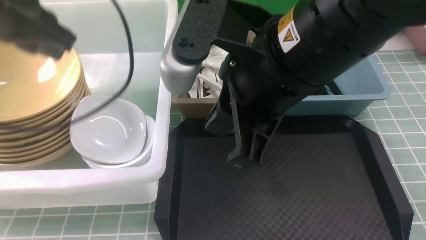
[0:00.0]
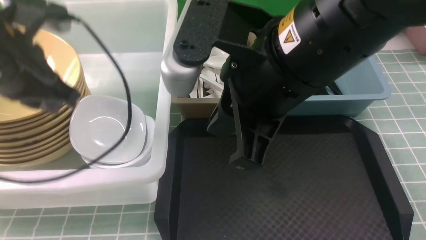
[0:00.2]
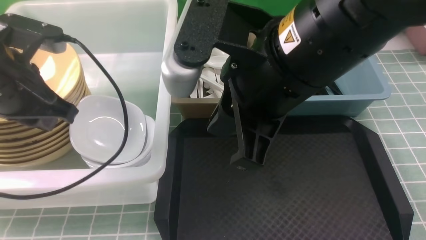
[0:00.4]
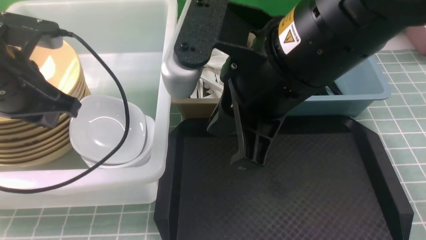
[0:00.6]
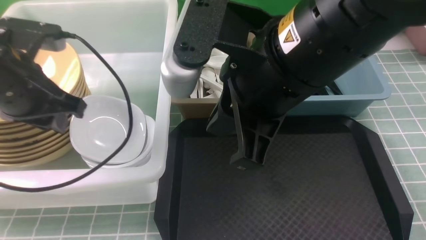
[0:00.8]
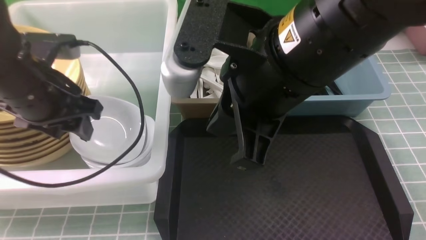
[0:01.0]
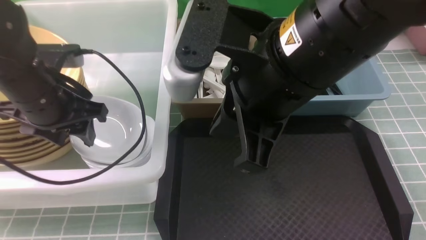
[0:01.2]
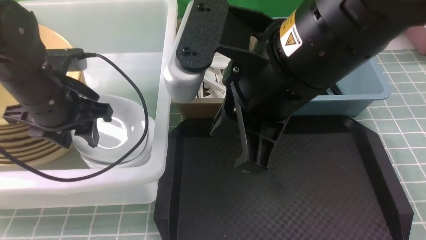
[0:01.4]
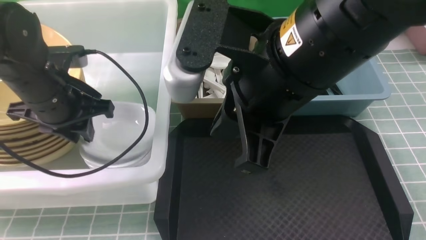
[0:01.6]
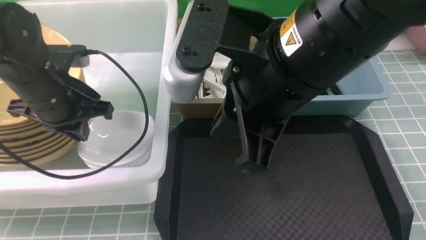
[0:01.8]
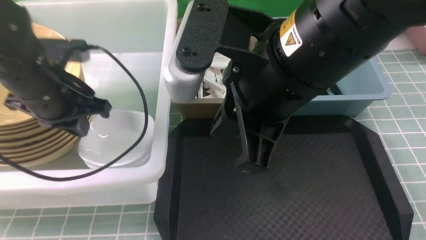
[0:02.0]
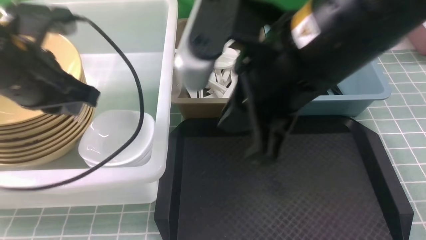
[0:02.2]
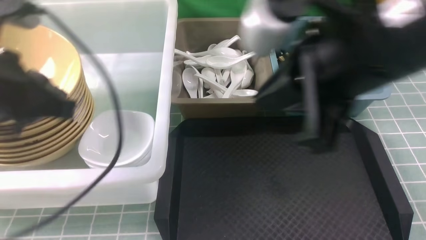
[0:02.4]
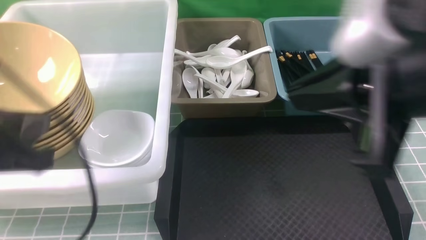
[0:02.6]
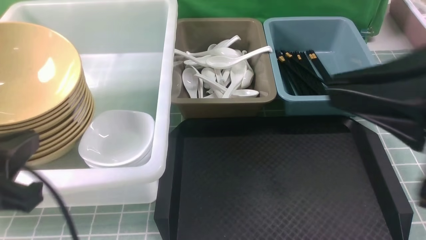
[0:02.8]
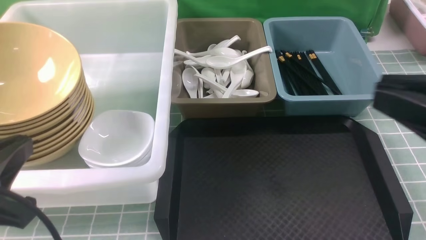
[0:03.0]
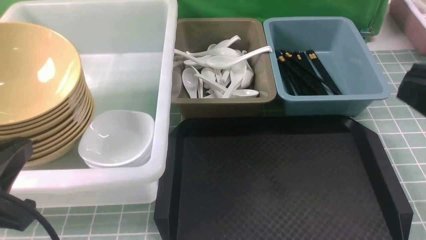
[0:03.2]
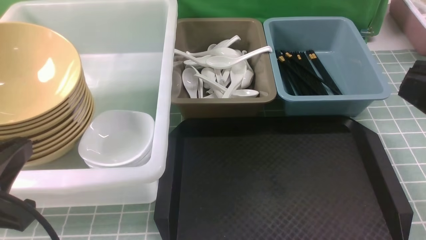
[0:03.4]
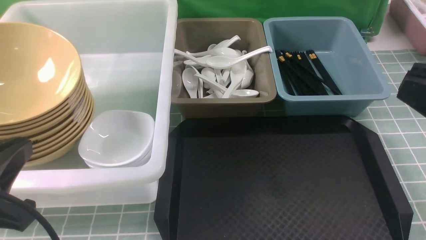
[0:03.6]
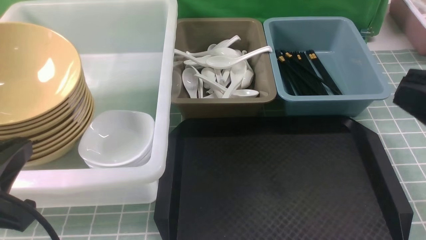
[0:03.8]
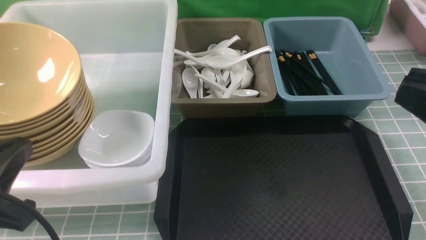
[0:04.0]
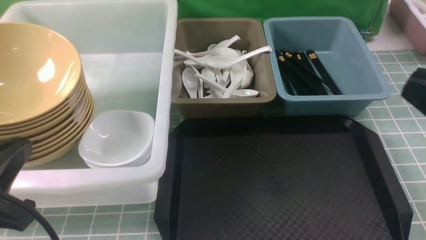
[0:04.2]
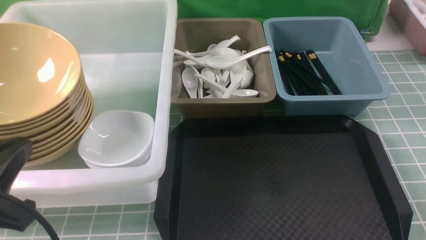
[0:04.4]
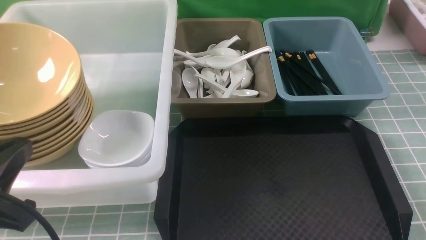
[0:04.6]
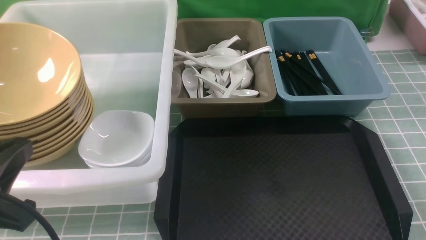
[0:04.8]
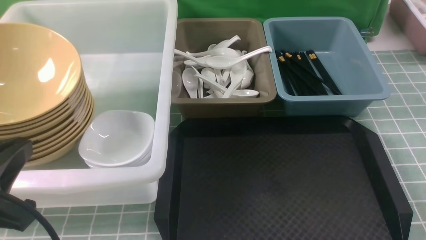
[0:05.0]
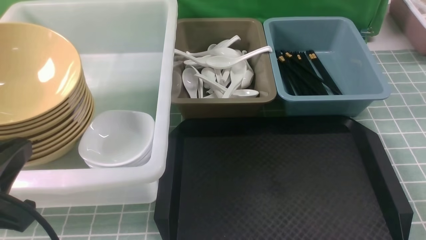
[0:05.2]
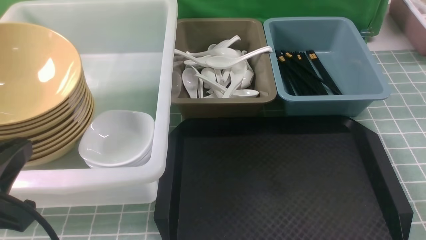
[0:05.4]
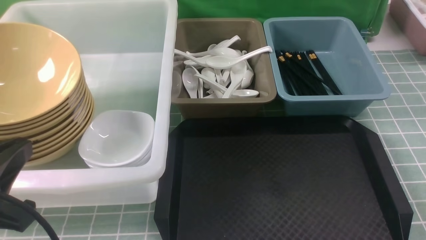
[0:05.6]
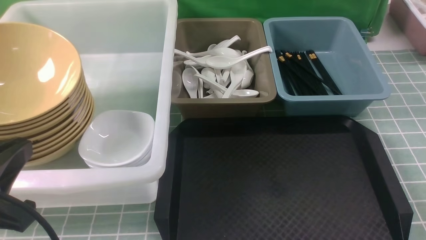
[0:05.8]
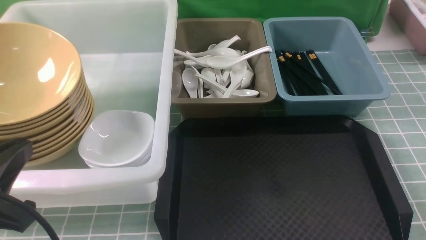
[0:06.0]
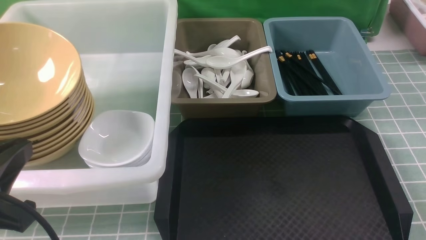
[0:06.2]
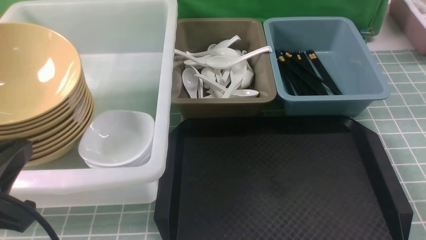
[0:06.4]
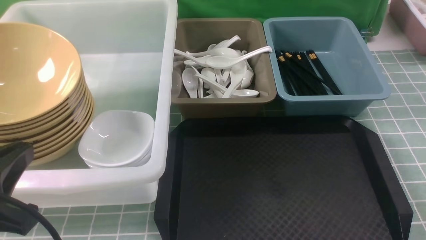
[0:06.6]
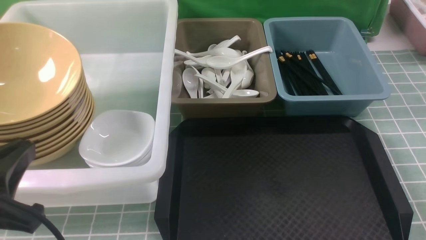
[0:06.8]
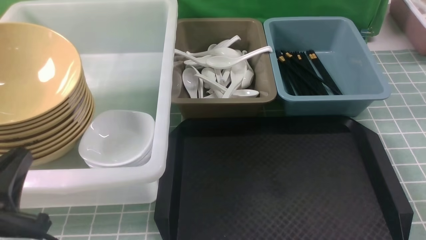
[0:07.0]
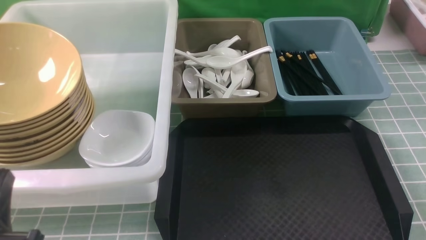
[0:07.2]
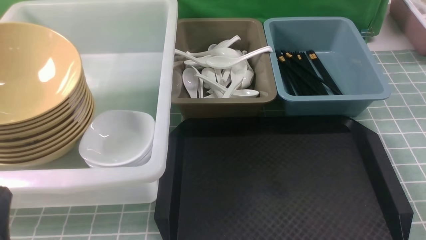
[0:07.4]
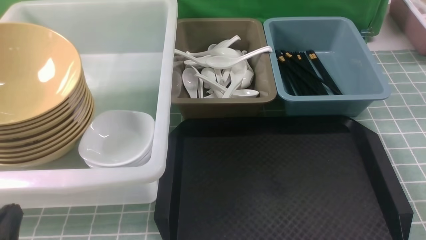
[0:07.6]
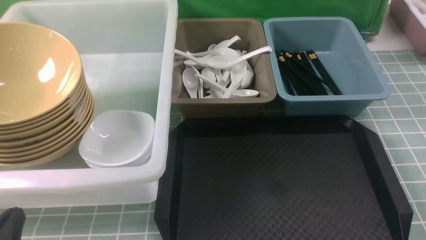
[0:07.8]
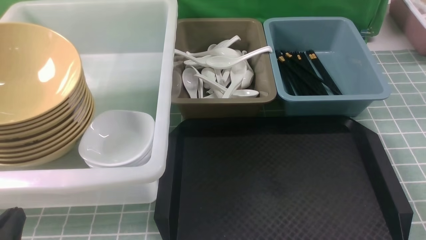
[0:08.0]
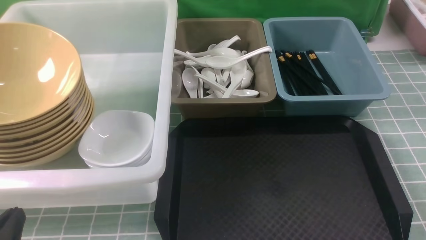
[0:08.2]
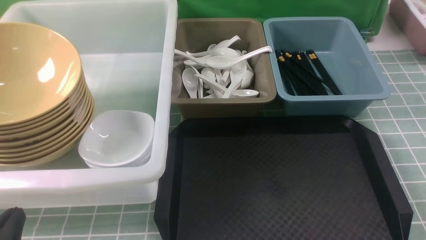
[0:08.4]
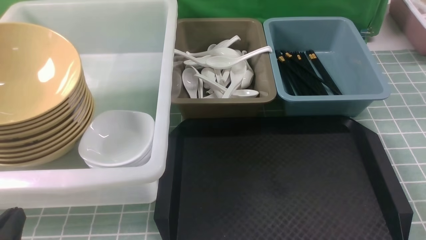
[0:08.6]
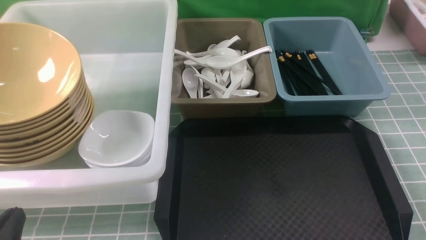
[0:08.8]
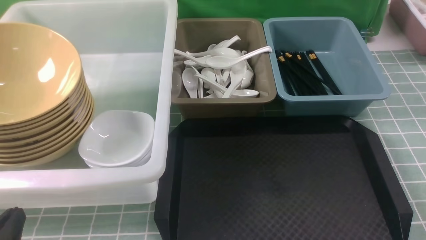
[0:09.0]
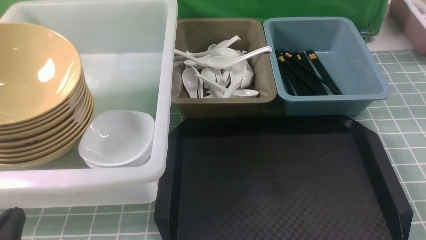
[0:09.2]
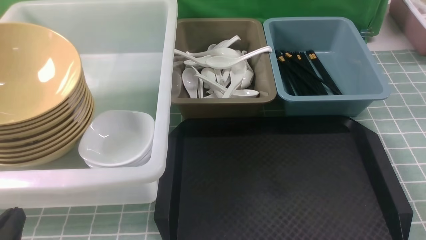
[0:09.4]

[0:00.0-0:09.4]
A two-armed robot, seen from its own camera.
Task of the whole recording: on blue table put chopsticks spoon bowls plates into blue grey white boxes.
0:00.0 to 0:01.6: The left gripper is displaced downward by approximately 10 cm, and opens and closes again.
0:01.6 to 0:03.2: The right gripper is displaced to the right and backward by some 20 cm. The left gripper travels backward by approximately 20 cm.
0:03.2 to 0:04.8: The right gripper goes roughly 20 cm downward and to the right.
0:06.2 to 0:07.8: The left gripper shifts some 15 cm downward.
0:07.8 to 0:09.4: Both grippers stay about where they are.

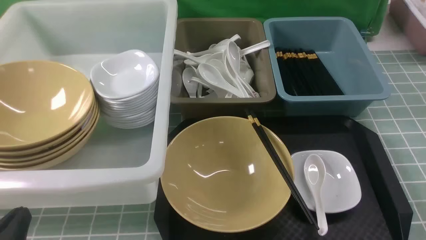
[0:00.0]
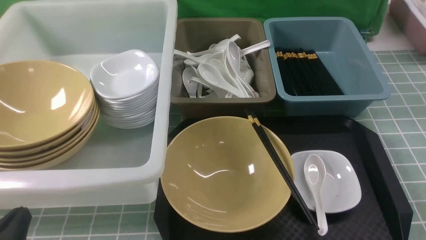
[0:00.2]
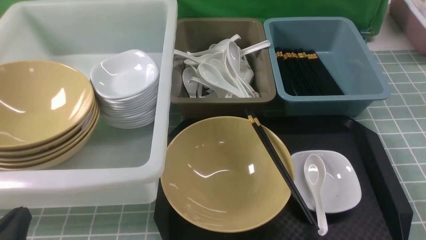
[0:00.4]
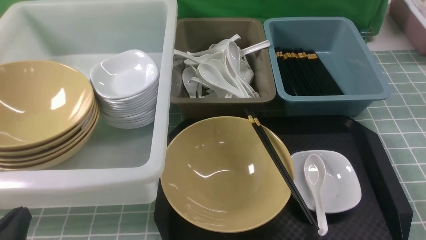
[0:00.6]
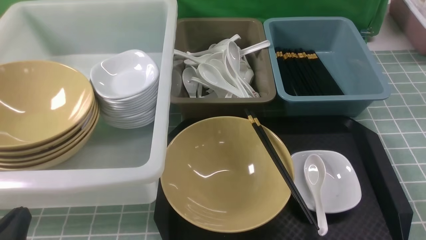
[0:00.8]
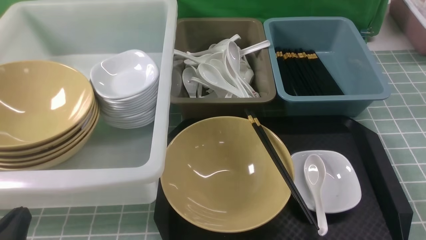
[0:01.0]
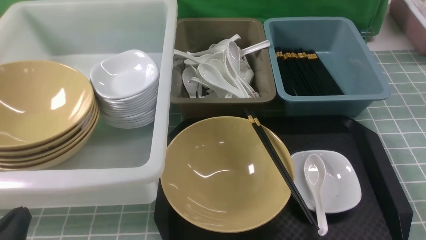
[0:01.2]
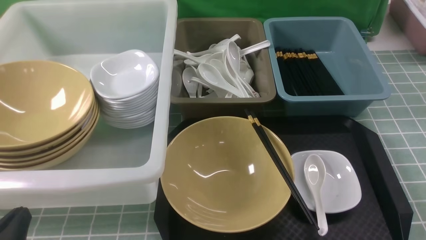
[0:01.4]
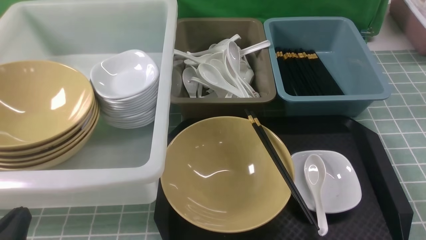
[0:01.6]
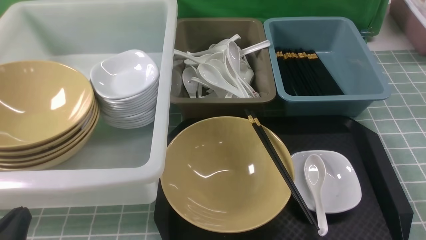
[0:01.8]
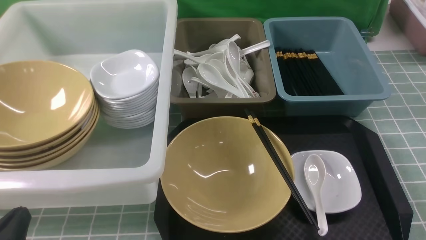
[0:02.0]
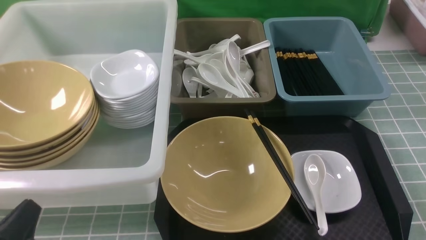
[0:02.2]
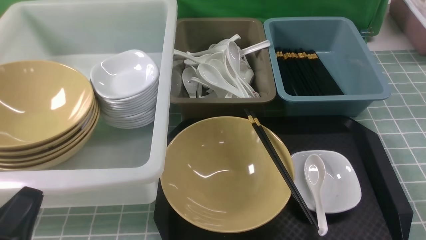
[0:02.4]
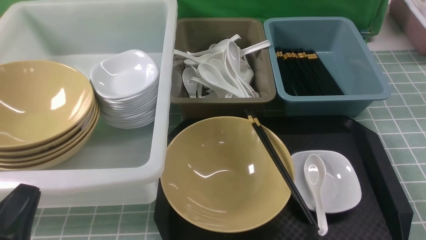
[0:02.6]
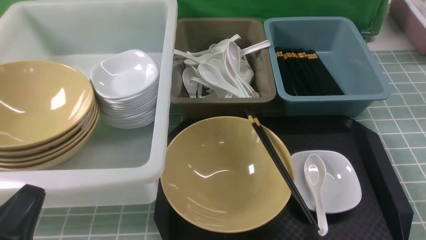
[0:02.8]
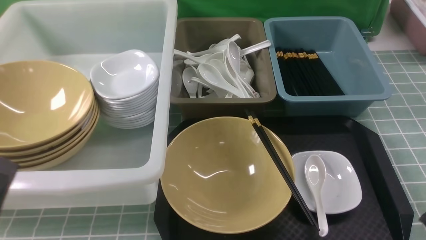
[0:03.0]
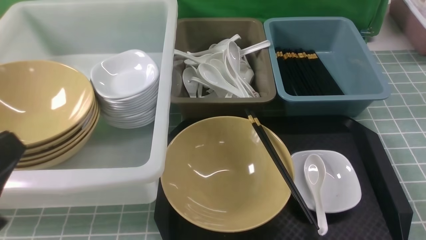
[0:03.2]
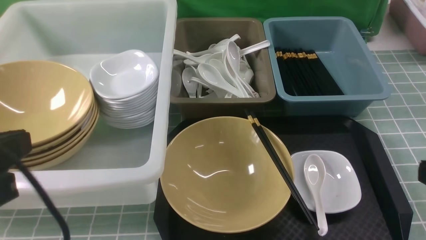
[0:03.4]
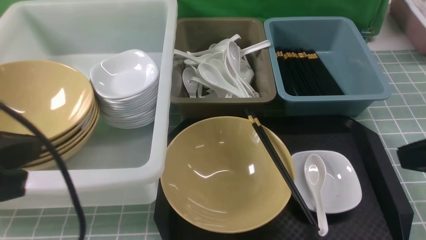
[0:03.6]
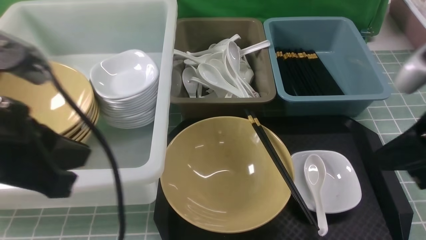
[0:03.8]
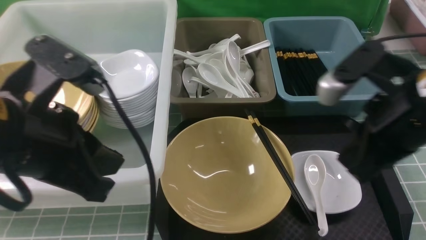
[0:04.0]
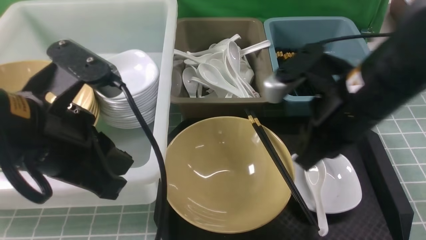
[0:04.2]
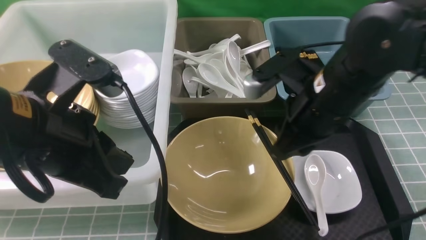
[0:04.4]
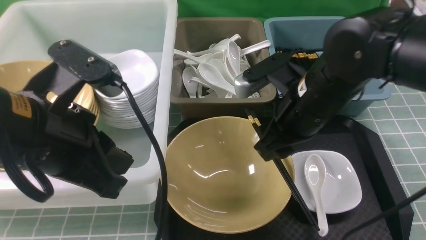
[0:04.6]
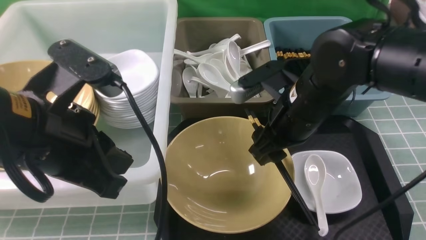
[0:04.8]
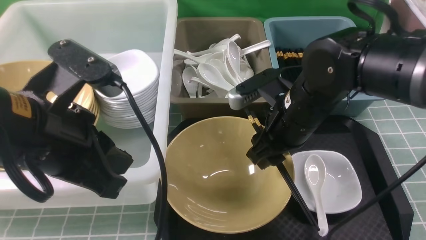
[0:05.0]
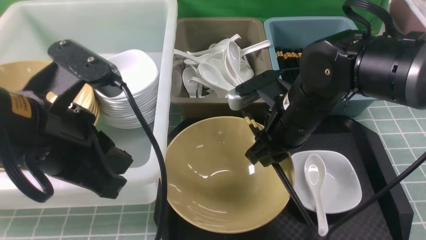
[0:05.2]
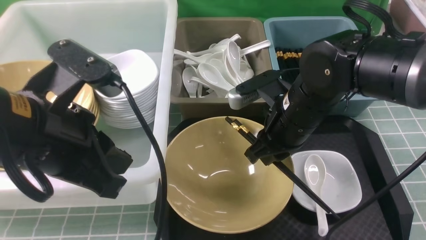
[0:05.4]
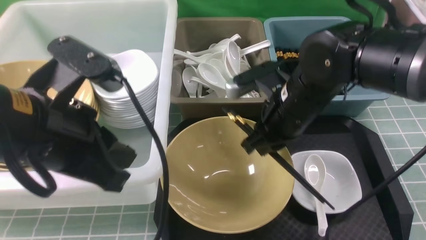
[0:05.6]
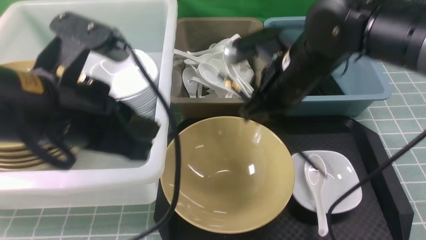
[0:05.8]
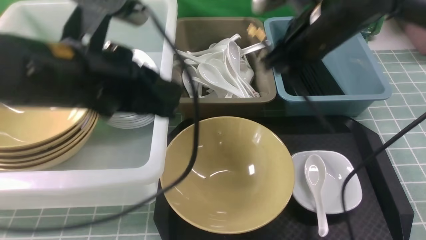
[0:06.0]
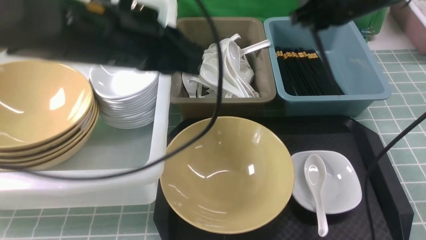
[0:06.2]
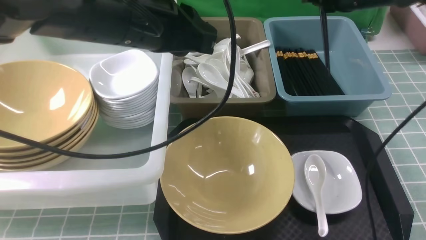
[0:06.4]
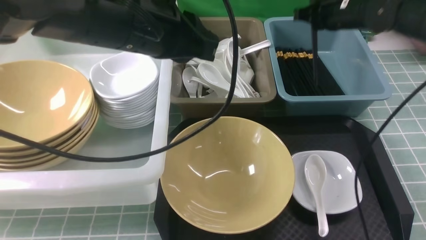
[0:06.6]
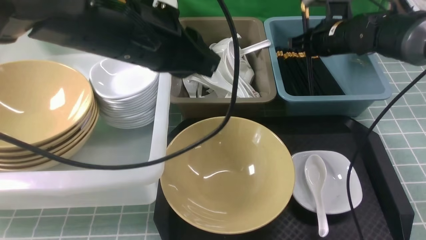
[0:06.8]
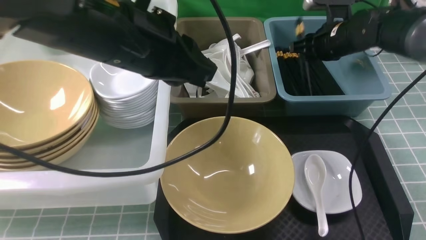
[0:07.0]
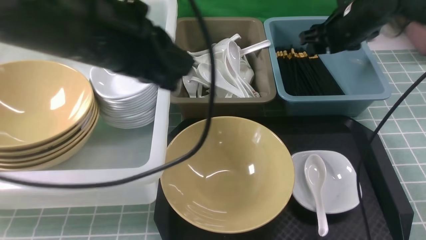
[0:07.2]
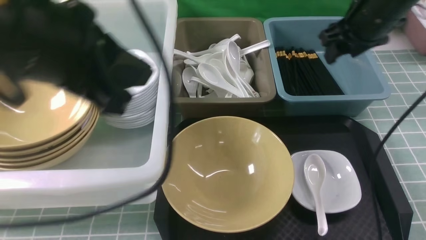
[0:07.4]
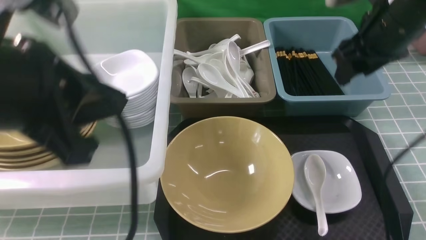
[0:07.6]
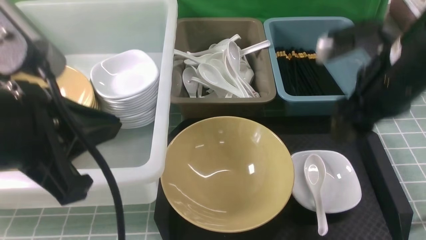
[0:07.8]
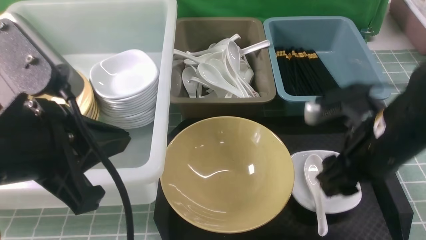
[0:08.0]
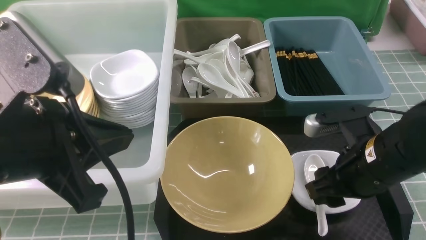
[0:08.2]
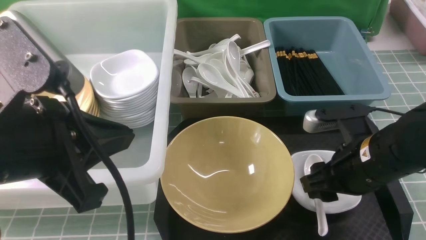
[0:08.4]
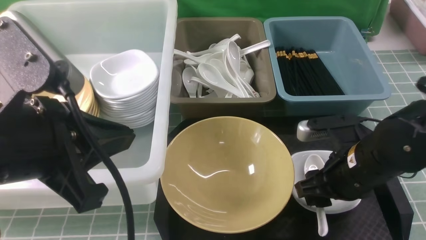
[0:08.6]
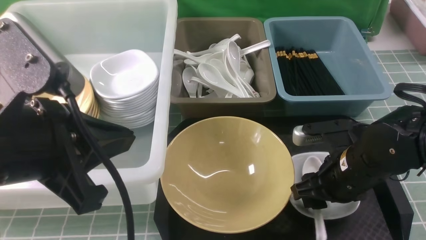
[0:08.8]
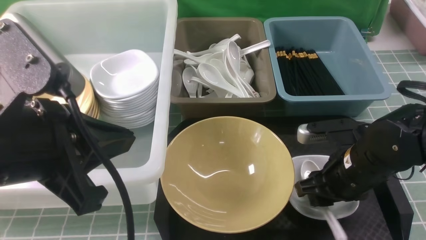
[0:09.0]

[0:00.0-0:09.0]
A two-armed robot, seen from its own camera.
Task of the whole recording: on blue table put chopsticks spoon bowls plates into blue grey white boxes.
Step, 0:00.0 to 0:05.6: use the right arm to grab the chopsticks.
Step, 0:05.8 to 0:07.0: use the right arm to put the chopsticks into the small storage box on the right.
0:00.0 to 0:01.6: Both grippers stay about where they are.
0:01.6 to 0:03.0: The left gripper goes approximately 10 cm upward, while the right gripper shifts by roughly 5 cm.
0:03.0 to 0:04.4: The left gripper is displaced forward, to the right and upward by about 15 cm. The right gripper is displaced forward and to the left by approximately 25 cm, and closes, then reopens.
0:04.4 to 0:06.0: The right gripper heads forward, covering about 10 cm, and opens and closes again; the left gripper is displaced forward by some 5 cm.
0:06.0 to 0:07.6: The right gripper moves to the right, roughly 5 cm, travels forward and back again, approximately 10 cm each way, and opens up. Meanwhile the left gripper moves backward, some 10 cm.
0:07.6 to 0:09.0: The right gripper moves downward and backward, some 20 cm.
